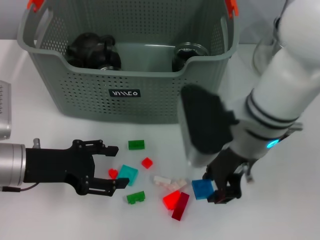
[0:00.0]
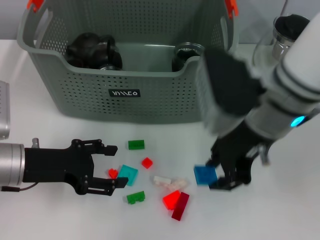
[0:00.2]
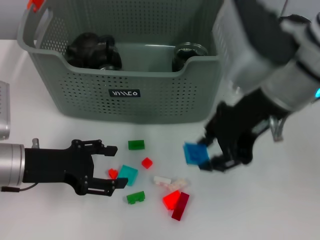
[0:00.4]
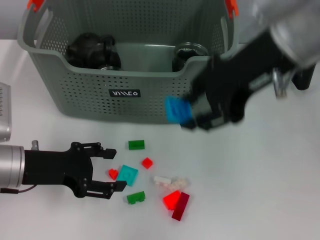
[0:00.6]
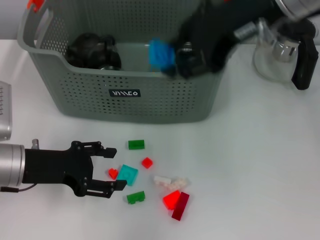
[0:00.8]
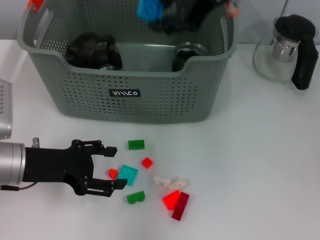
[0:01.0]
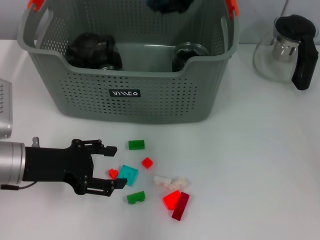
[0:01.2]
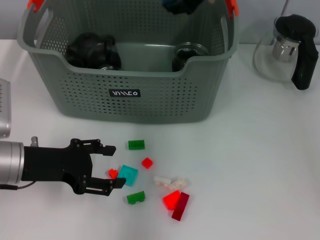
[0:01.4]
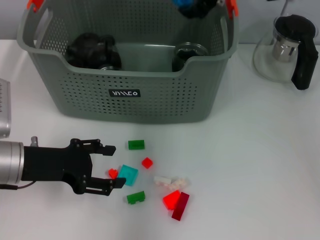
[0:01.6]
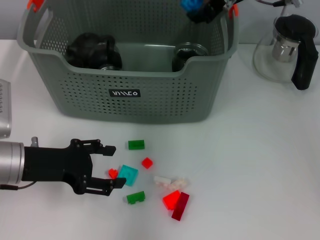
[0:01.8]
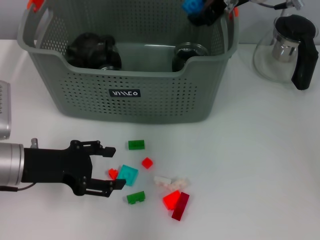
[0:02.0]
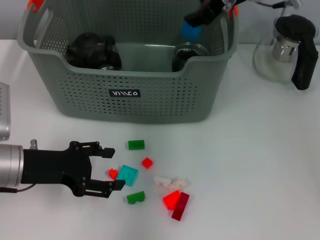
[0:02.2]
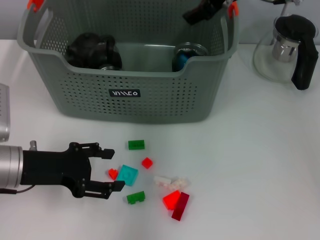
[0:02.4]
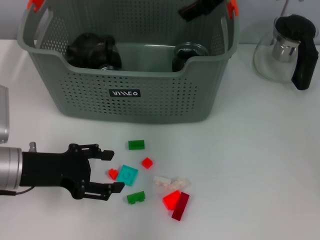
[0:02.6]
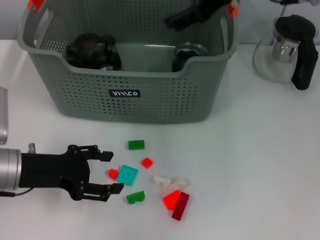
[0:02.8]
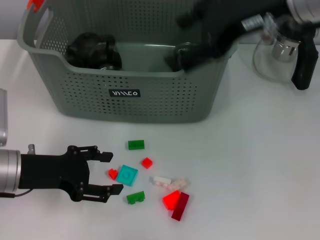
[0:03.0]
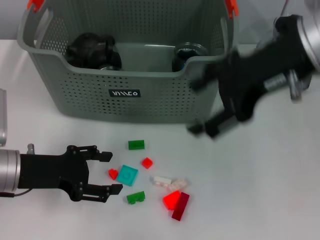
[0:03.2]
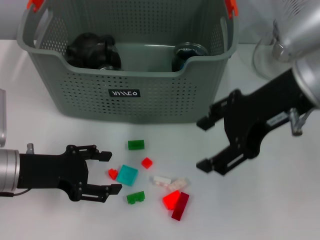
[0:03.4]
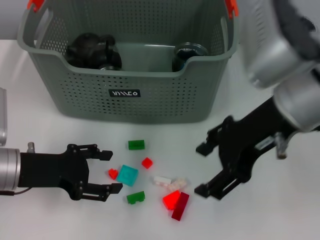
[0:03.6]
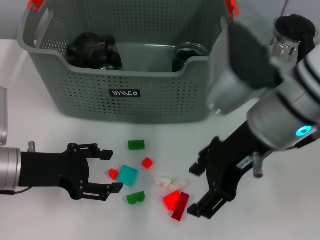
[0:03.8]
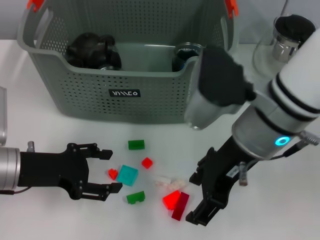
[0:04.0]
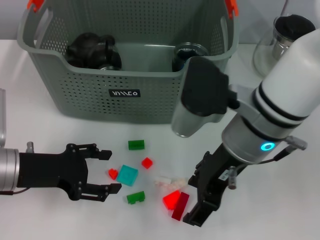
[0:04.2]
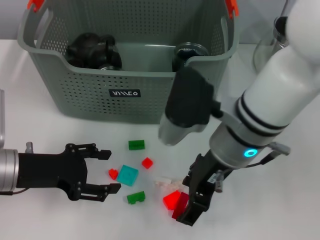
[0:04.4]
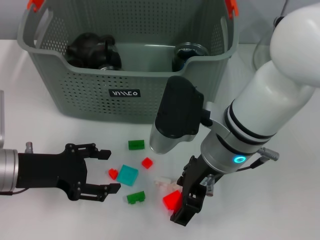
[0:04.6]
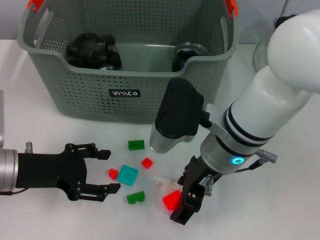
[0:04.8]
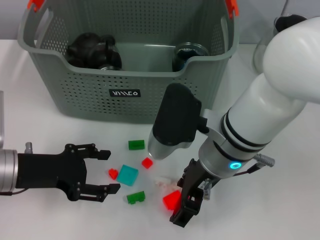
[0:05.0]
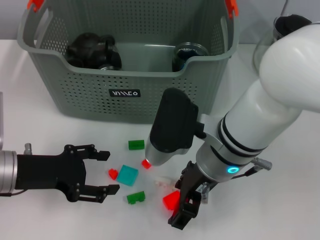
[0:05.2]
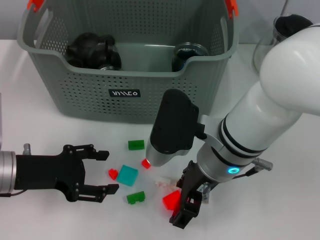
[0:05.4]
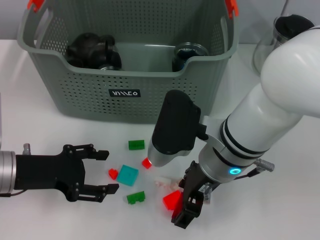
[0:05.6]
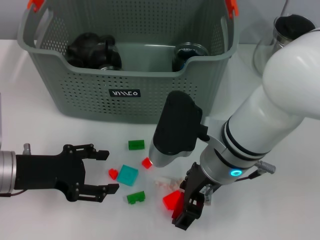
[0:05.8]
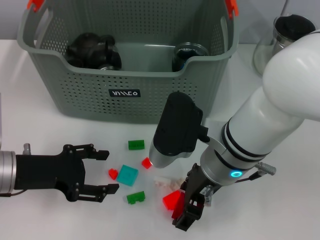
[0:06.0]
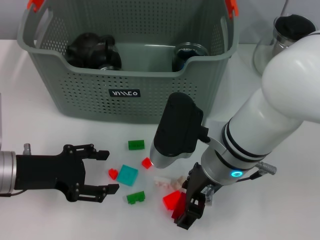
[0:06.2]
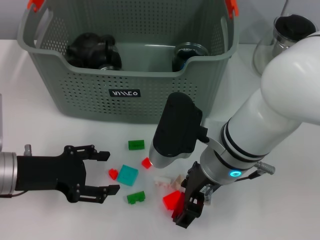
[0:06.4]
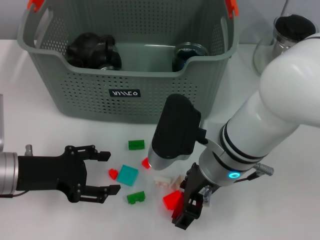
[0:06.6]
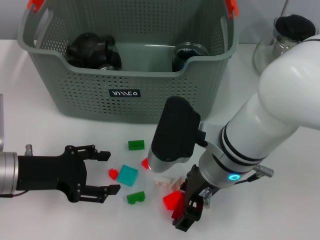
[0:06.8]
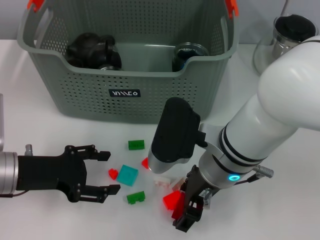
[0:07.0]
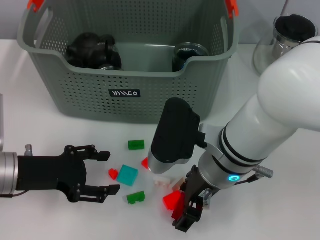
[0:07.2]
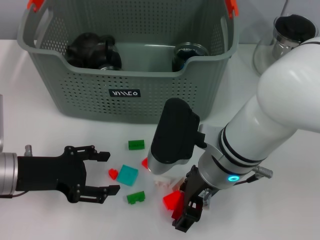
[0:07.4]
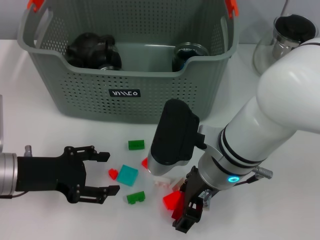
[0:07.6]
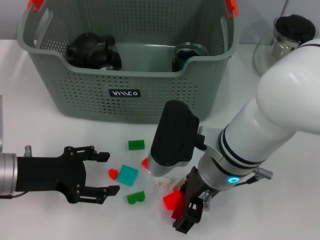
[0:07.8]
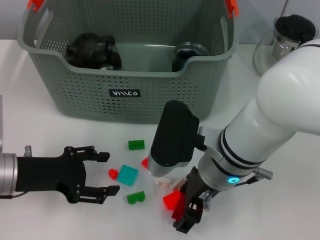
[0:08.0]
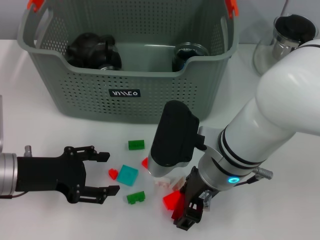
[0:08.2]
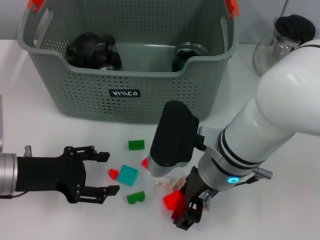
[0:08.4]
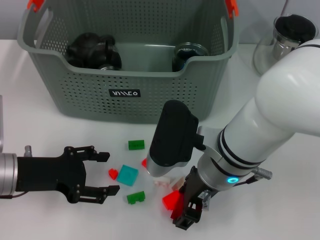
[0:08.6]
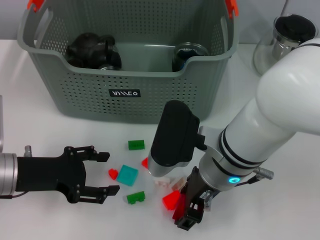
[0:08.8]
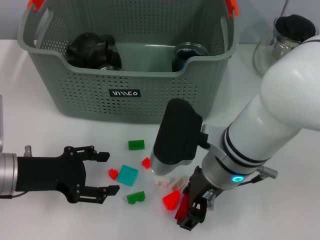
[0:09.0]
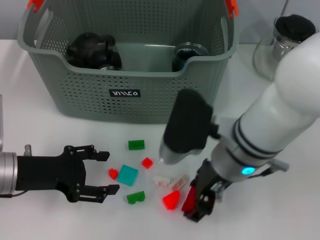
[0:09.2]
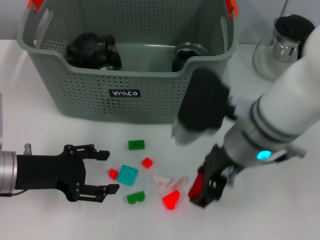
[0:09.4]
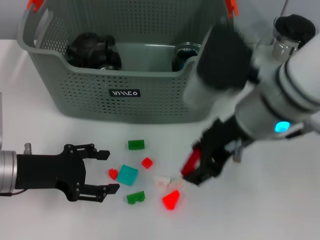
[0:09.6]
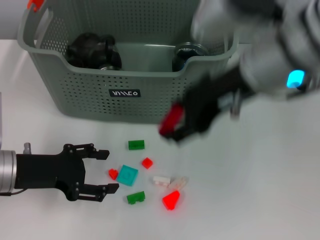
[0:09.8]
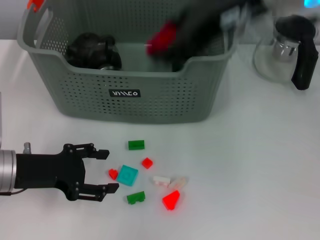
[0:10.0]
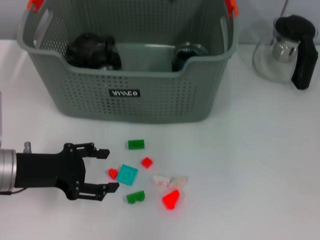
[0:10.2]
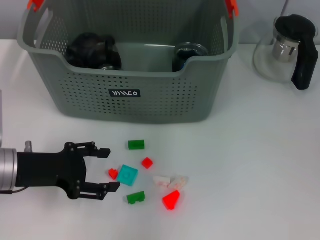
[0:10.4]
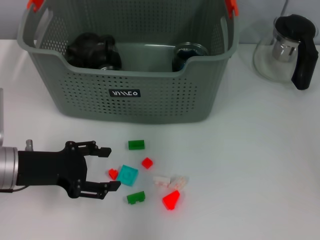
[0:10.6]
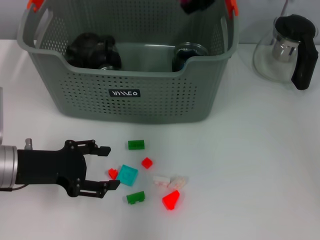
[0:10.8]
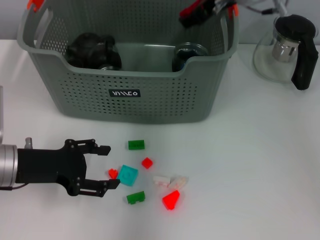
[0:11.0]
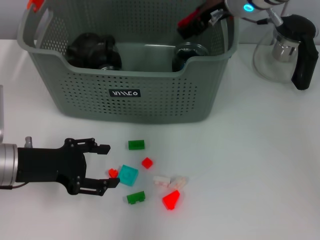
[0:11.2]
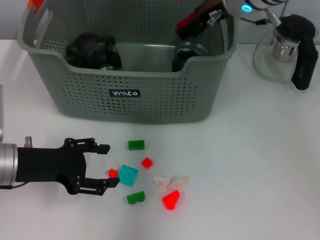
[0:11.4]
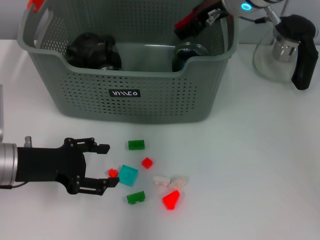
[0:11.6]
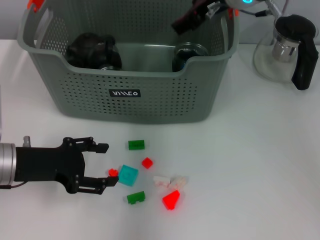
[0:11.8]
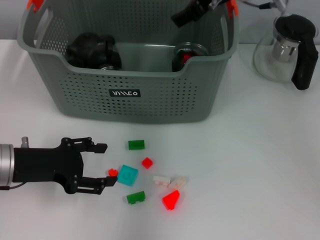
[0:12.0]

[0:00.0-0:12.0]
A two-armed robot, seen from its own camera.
Task of the whole recording: pick up the teacup on the table and place it into the storage bin, pick up the block on the table and place it into the storage bin.
Step, 0:00.0 to 0:02.4: Place the dark blue block in the storage box with right gripper.
Step, 0:02.6 to 0:08.2: Grasp the red block with right gripper.
Step, 0:08.4 to 0:11.8: Place the red block in the storage box with right gripper.
0:00.0 to 0:01.6: The right gripper moves forward and upward, some 15 cm.
0:01.6 to 0:03.0: The right gripper moves backward, roughly 10 cm, and opens.
0:03.0 to 0:04.4: The right gripper is displaced downward, to the left and backward by roughly 15 cm.
0:04.4 to 0:06.0: The grippers make only small movements.
0:06.0 to 0:09.0: The two grippers keep their place.
0:09.0 to 0:10.4: The right gripper moves upward and forward, some 25 cm.
0:10.4 to 0:12.0: The right gripper shifts some 10 cm downward.

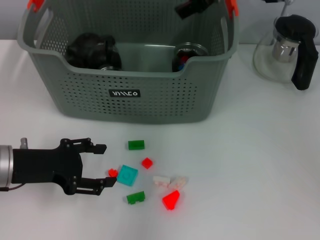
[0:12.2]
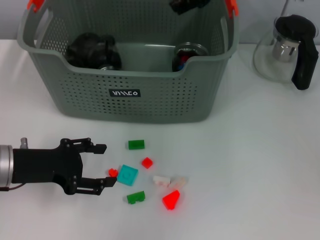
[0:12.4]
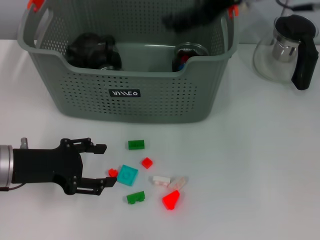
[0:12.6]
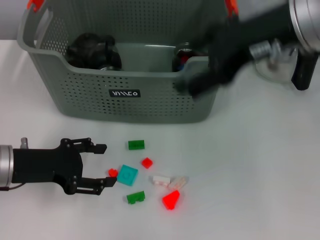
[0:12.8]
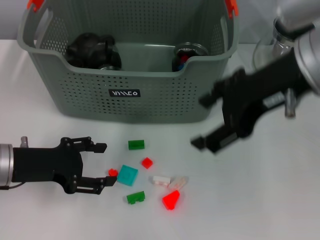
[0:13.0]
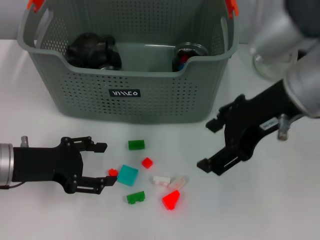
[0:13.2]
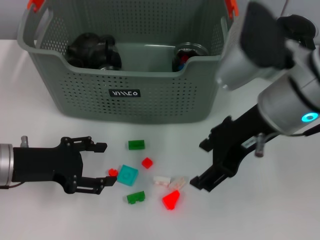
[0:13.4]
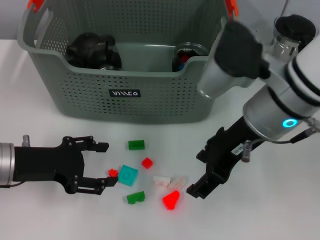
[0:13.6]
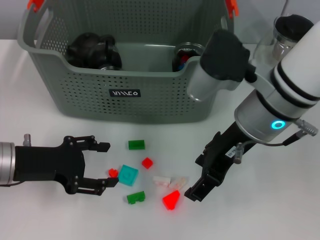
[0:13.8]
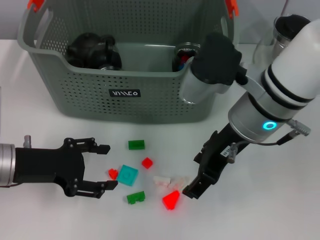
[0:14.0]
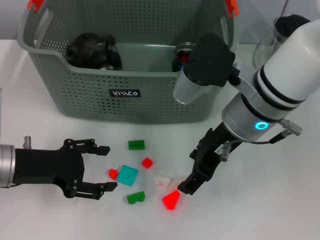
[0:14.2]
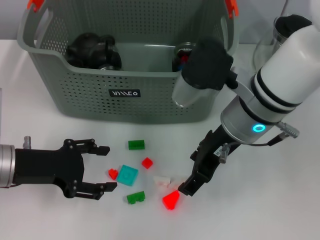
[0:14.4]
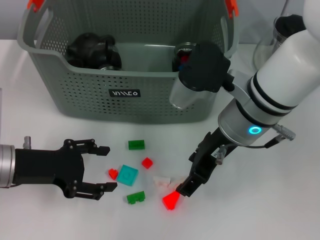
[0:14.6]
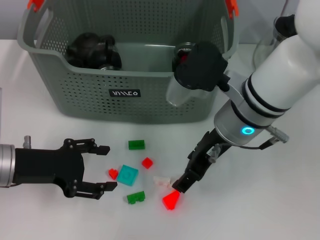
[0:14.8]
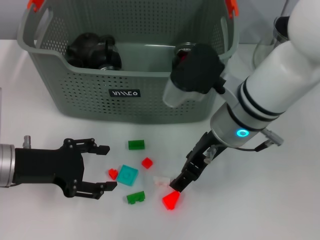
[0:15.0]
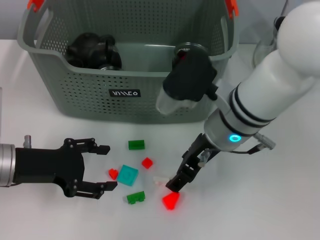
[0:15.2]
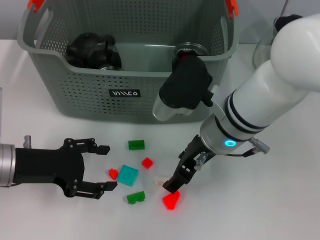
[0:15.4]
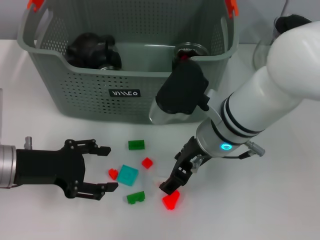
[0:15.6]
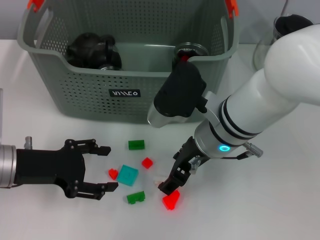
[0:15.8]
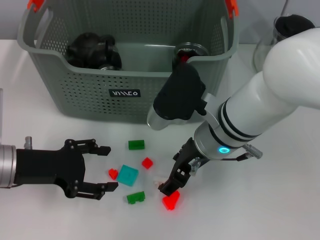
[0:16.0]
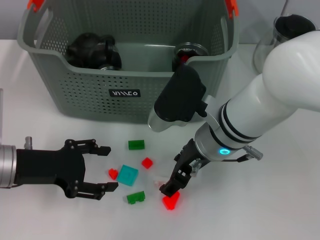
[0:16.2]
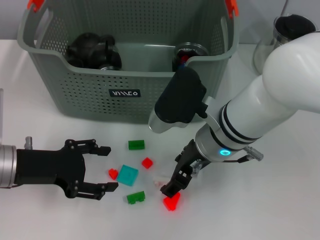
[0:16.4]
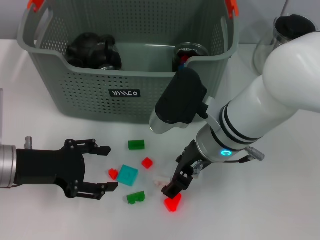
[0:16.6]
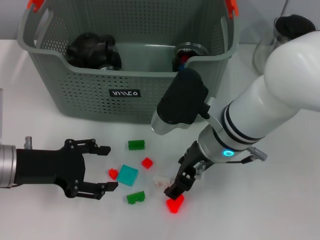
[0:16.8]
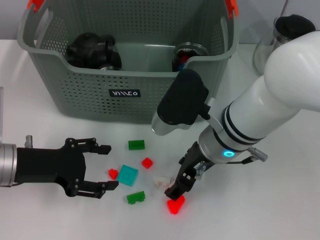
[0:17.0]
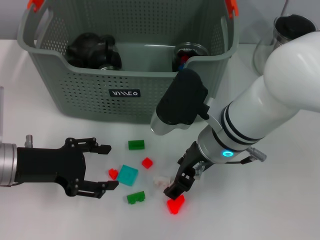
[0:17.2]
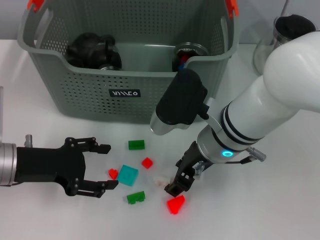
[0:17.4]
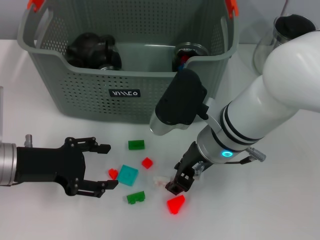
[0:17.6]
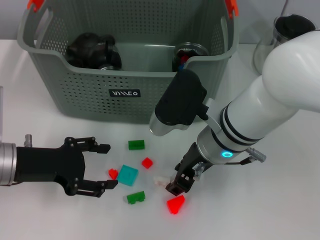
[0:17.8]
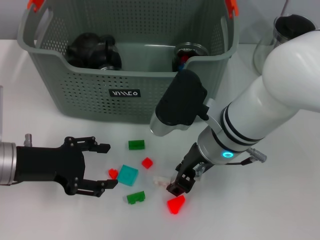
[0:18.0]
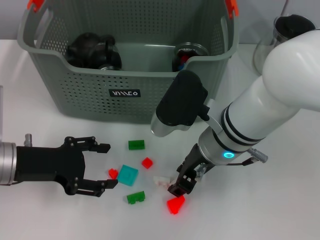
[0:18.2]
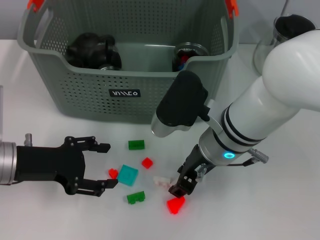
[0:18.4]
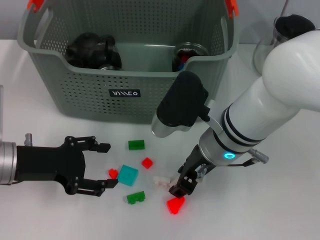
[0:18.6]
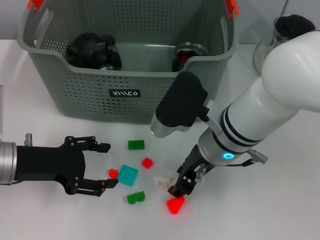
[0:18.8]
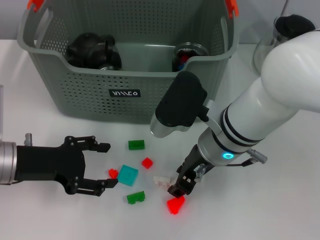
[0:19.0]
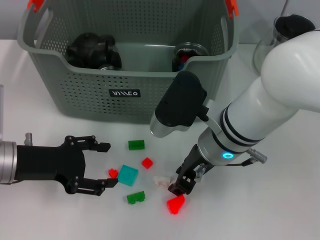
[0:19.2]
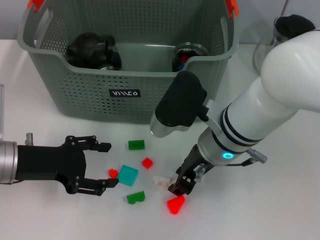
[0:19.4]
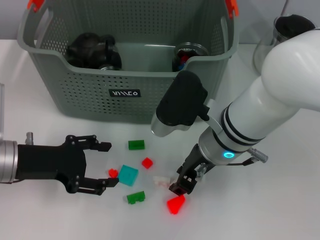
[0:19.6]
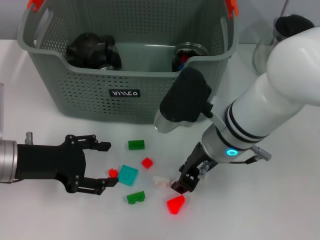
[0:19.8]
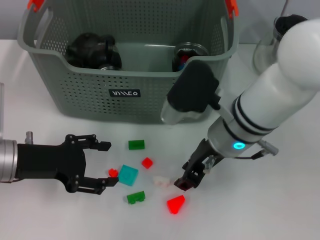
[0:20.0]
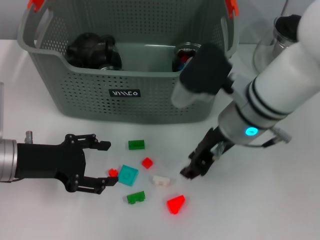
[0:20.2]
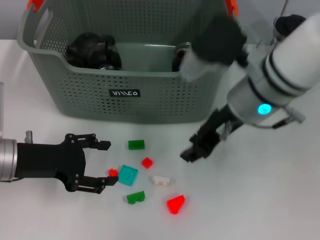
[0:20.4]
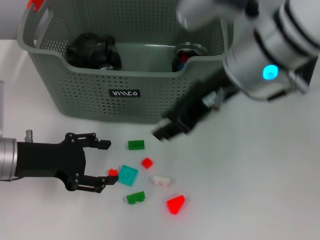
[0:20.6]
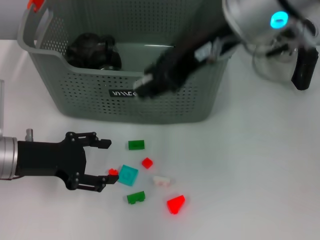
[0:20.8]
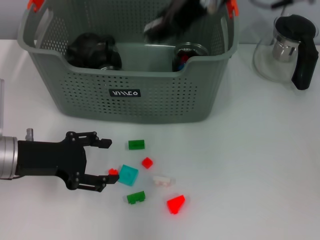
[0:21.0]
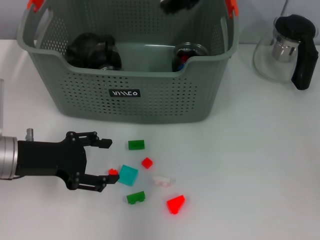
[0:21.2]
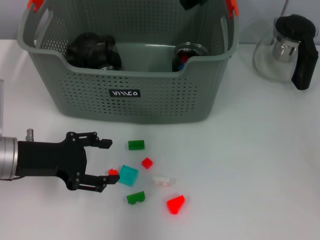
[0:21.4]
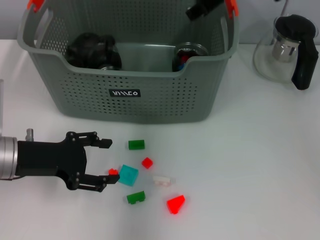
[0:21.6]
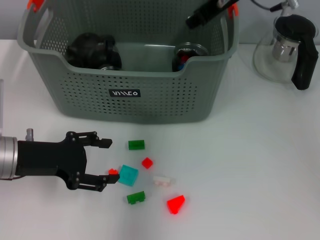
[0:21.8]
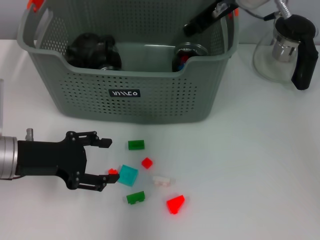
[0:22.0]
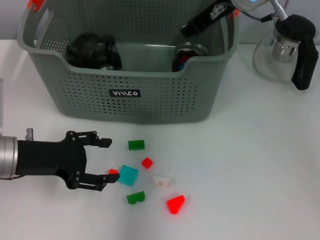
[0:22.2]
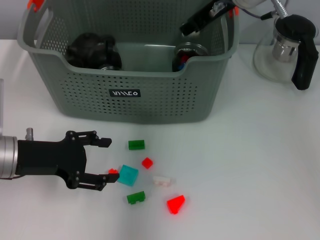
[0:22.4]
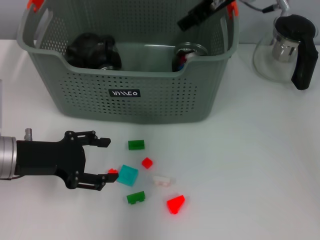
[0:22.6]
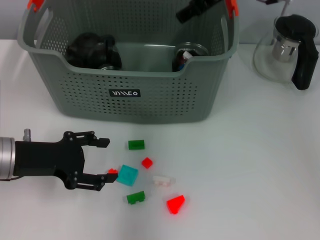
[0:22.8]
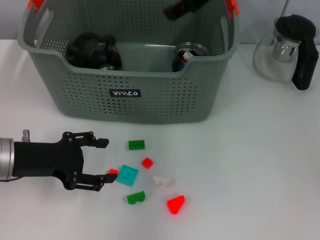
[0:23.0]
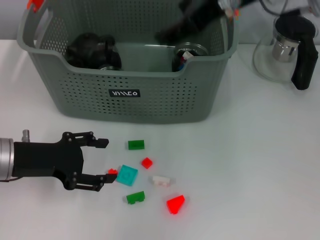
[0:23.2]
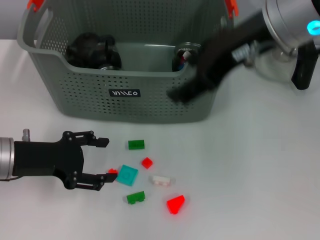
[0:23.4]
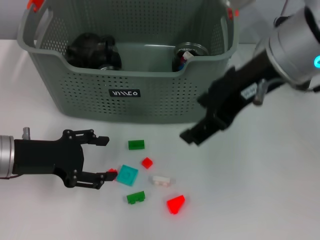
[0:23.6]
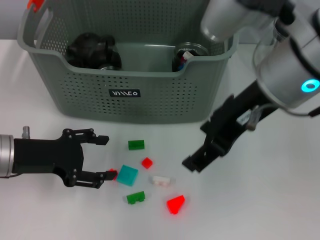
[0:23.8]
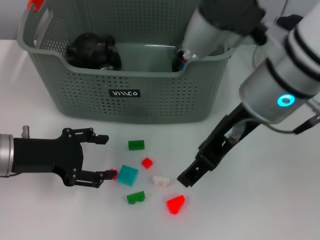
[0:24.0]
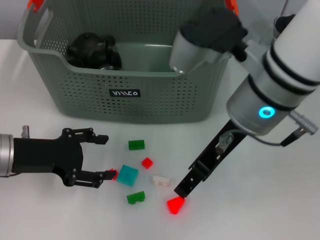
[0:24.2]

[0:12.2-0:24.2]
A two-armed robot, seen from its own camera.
Task of the whole recording: pick up the teacup on the table and place it into the storage bin, pick up the block on the table and place it into the storage bin.
Step, 0:12.2 to 0:19.2: Grasp the white block with right gripper.
Step, 0:19.4 to 0:22.4: Place the white block in the storage box with right gripper.
0:12.2 to 0:13.8: The right gripper moves backward and downward, some 15 cm.
0:13.8 to 0:15.2: The right gripper ends up roughly 5 cm from where it was.
0:15.2 to 0:16.6: There are only small adjustments of the grippers.
0:16.6 to 0:18.2: The right gripper closes its fingers.
0:18.2 to 0:19.8: Neither gripper changes place.
0:19.8 to 0:21.2: The right gripper goes about 20 cm upward.
0:21.2 to 0:22.6: The right gripper shifts about 10 cm downward and forward.
0:22.6 to 0:24.2: The right gripper moves backward, some 15 cm, and opens.
